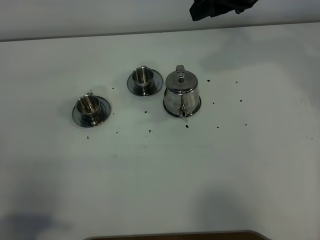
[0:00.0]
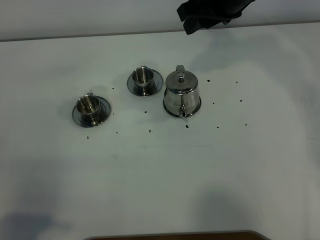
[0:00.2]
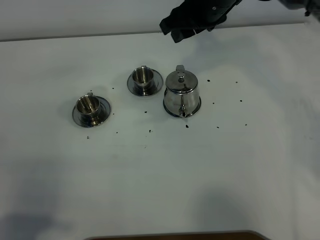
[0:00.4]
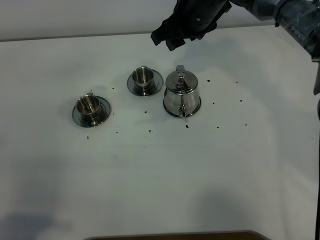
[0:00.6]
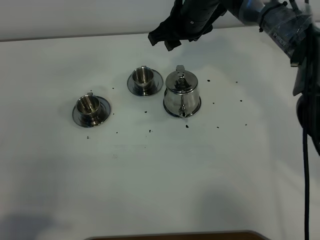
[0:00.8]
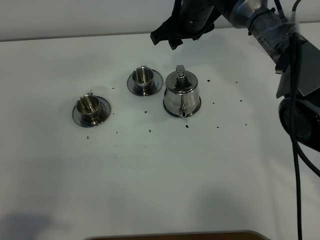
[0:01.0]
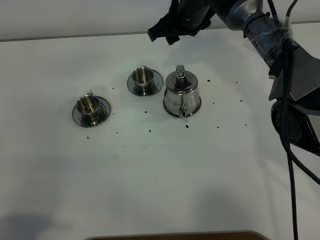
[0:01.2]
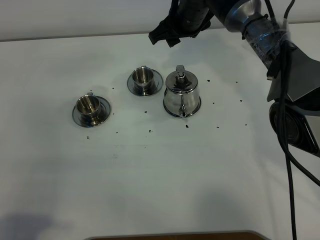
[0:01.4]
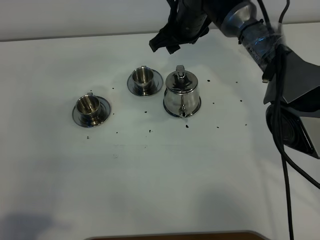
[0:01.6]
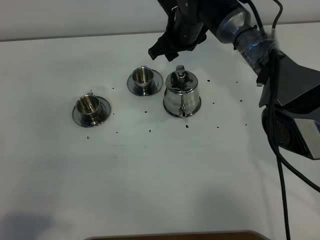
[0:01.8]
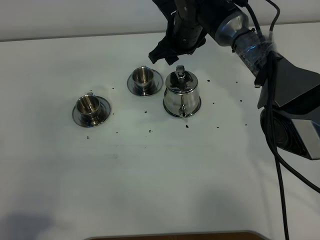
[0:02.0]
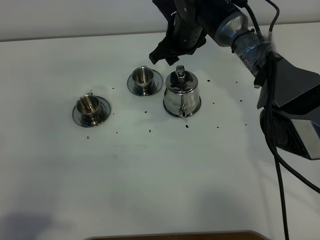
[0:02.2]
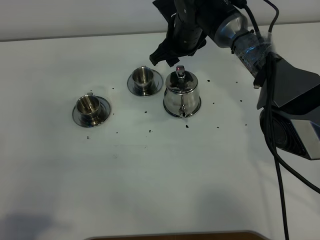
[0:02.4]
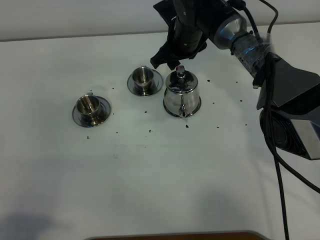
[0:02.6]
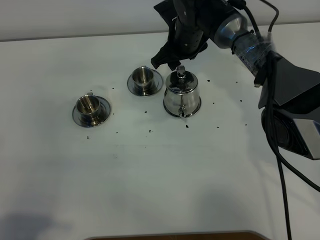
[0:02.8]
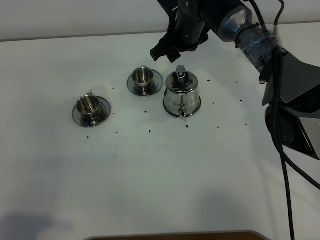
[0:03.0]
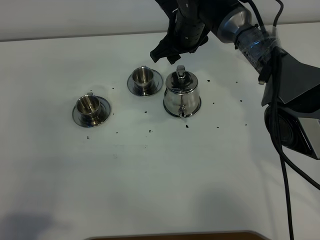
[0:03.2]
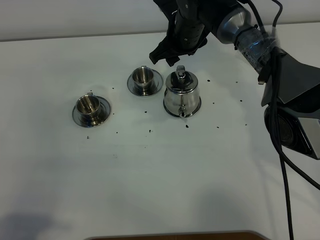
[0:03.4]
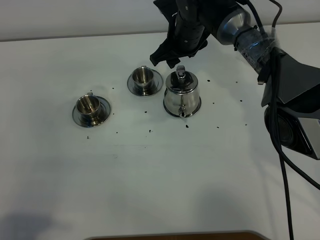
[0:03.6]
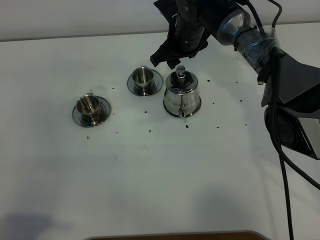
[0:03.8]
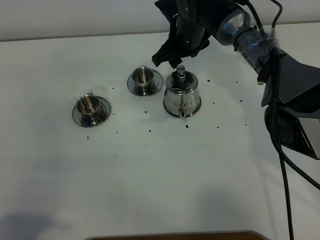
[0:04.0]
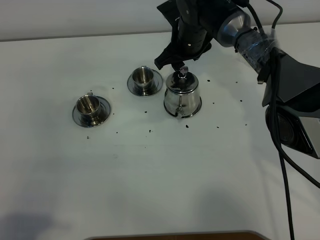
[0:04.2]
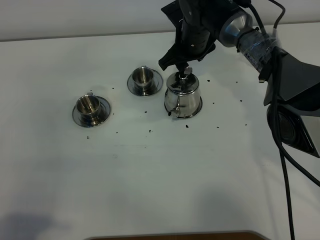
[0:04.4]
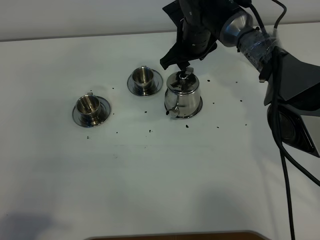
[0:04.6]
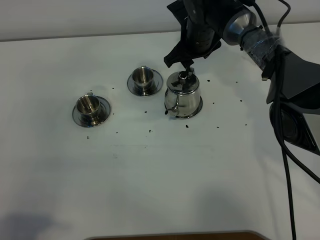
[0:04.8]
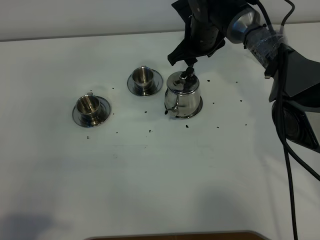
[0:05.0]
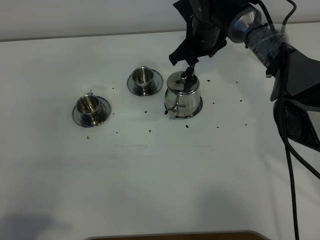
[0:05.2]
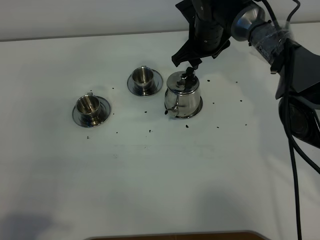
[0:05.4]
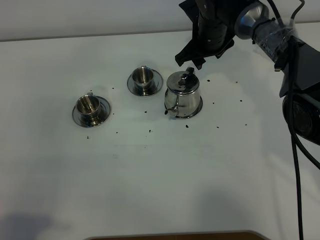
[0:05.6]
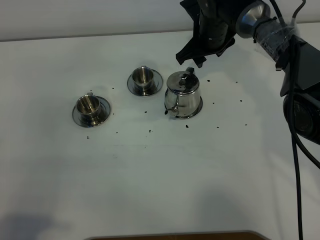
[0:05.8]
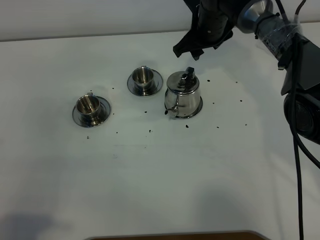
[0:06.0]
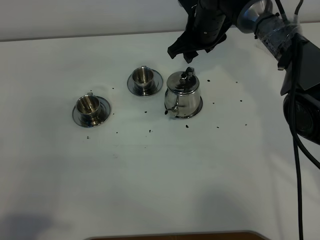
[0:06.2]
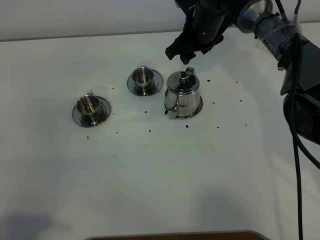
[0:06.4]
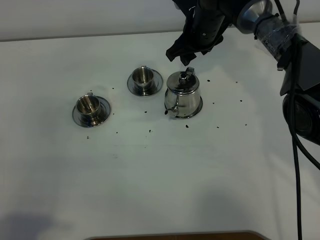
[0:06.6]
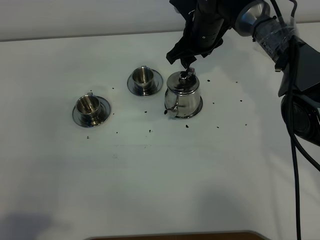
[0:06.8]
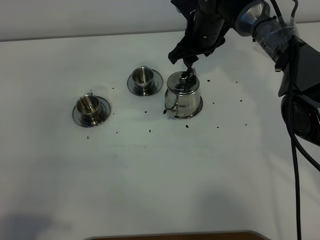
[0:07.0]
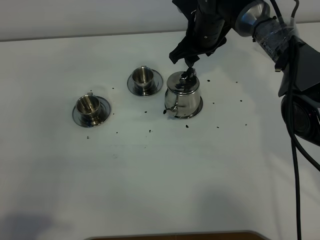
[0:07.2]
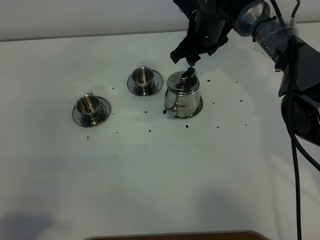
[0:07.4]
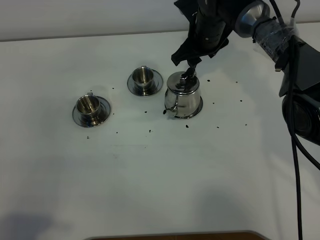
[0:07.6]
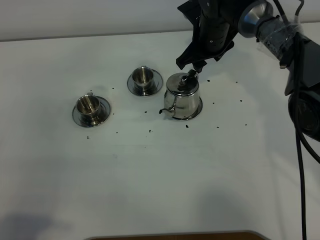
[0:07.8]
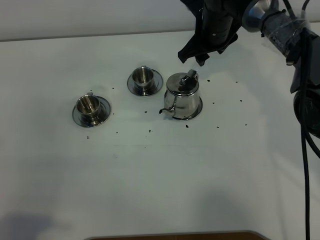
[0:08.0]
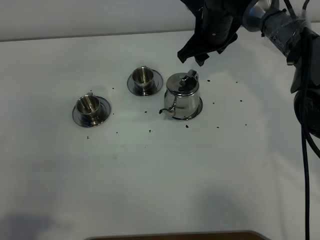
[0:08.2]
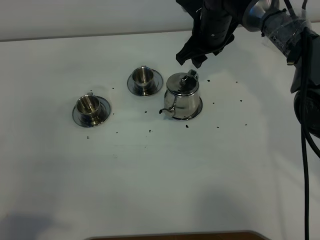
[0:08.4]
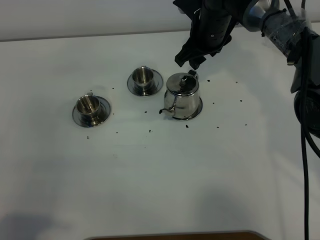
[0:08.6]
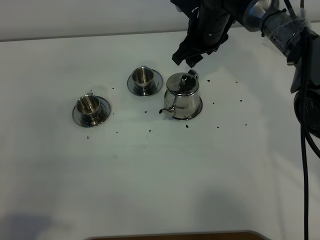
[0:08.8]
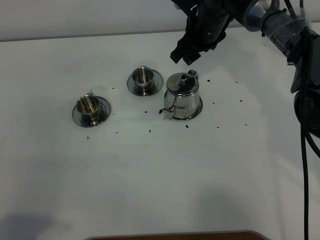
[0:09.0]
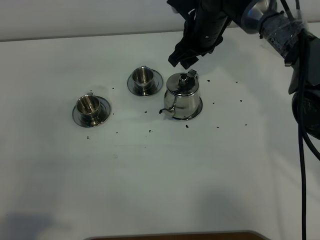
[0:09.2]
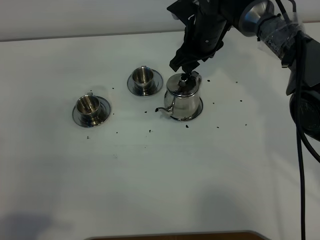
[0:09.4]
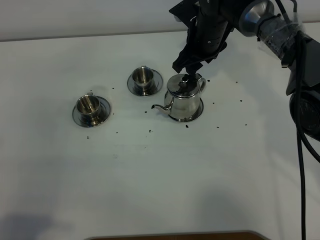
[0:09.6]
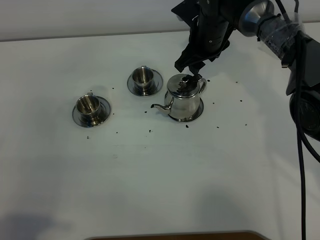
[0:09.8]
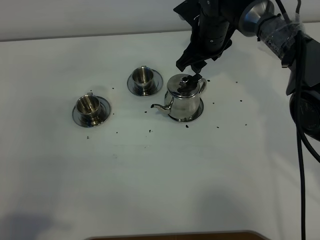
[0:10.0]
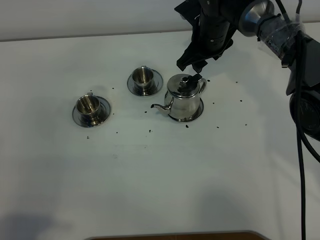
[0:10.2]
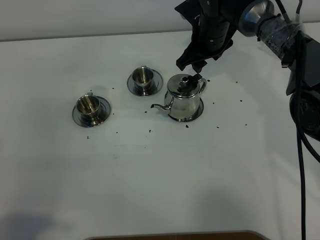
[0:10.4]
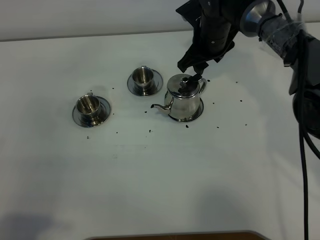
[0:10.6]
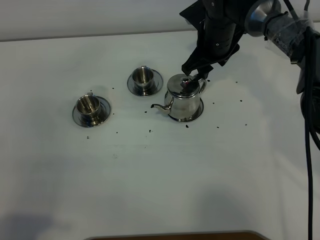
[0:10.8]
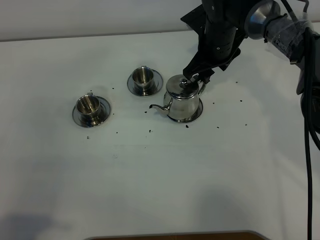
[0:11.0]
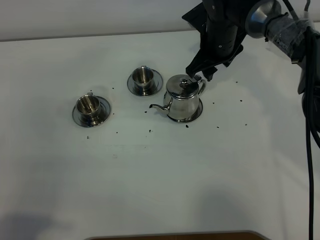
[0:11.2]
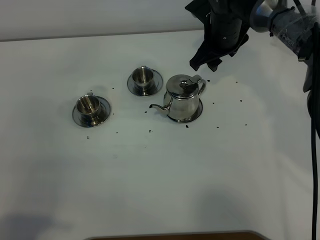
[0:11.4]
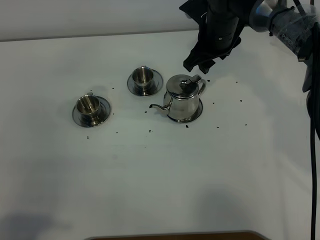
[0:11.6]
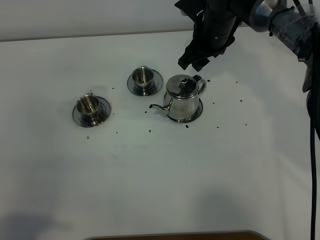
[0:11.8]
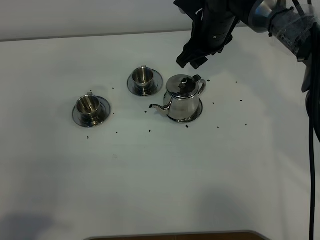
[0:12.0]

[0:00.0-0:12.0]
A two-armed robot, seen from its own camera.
Task of the whole recording: grasp the stainless steel teapot and pour the tea into the two stainless steel teacups one by one, put the stainless steel teapot back in its original place.
0:00.0 to 0:01.6: The right gripper moves downward, to the left and forward, approximately 20 cm.
0:01.6 to 0:10.4: The grippers stay close to where they were, moving slightly.
0:10.4 to 0:12.0: The grippers make only small movements.

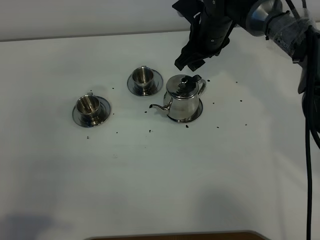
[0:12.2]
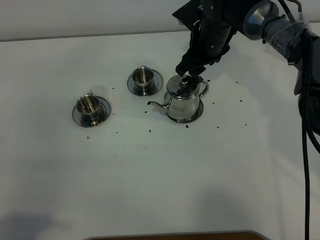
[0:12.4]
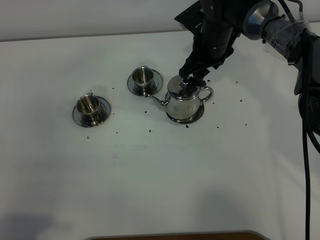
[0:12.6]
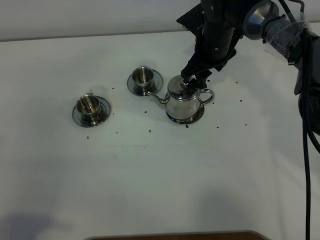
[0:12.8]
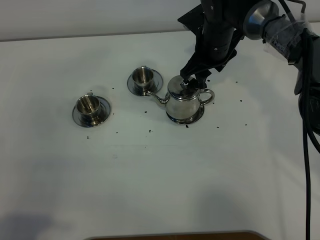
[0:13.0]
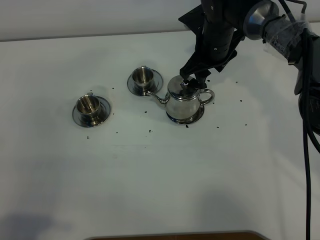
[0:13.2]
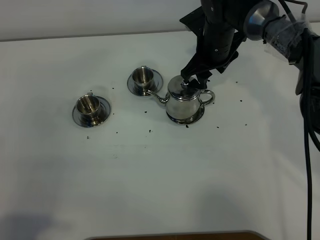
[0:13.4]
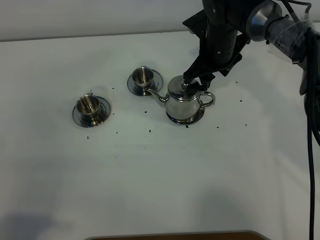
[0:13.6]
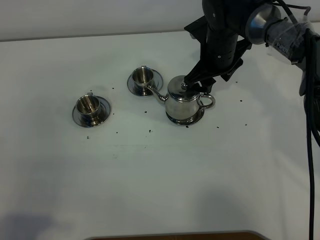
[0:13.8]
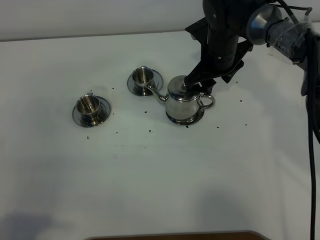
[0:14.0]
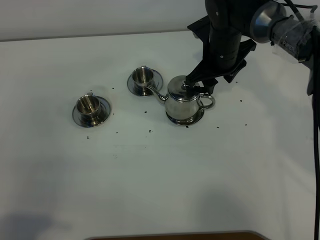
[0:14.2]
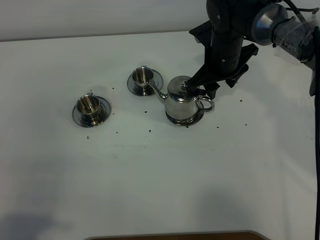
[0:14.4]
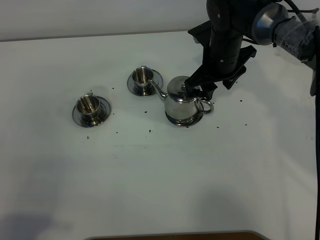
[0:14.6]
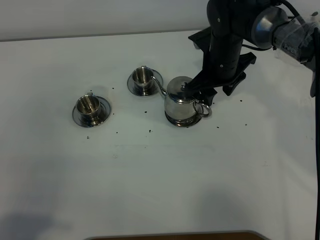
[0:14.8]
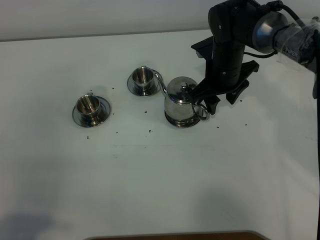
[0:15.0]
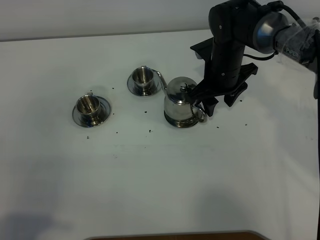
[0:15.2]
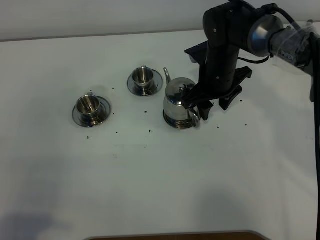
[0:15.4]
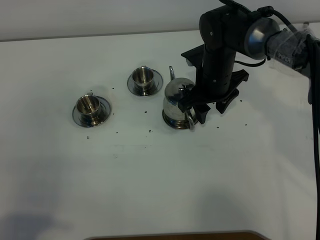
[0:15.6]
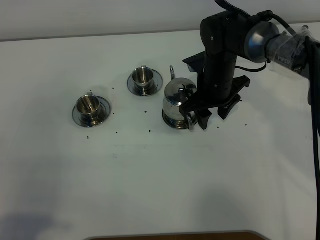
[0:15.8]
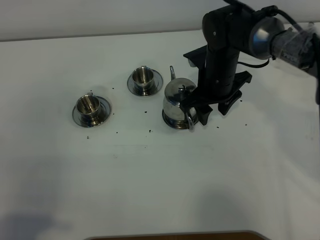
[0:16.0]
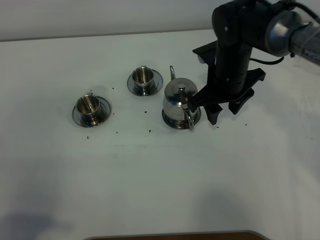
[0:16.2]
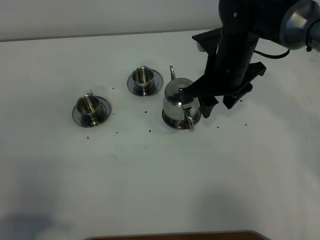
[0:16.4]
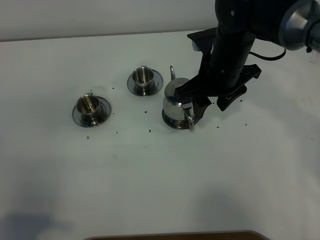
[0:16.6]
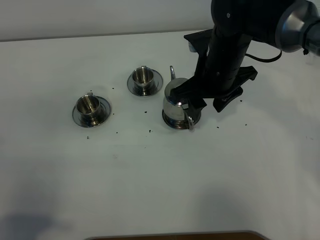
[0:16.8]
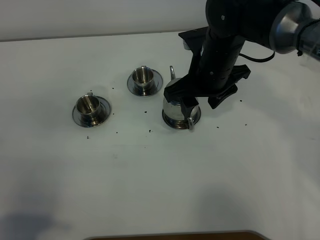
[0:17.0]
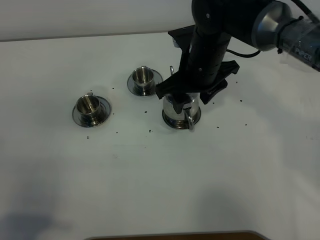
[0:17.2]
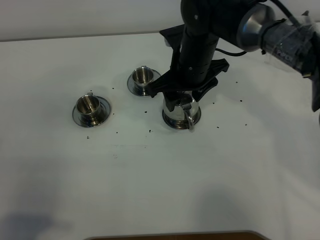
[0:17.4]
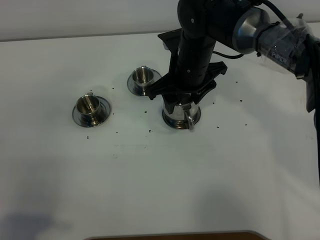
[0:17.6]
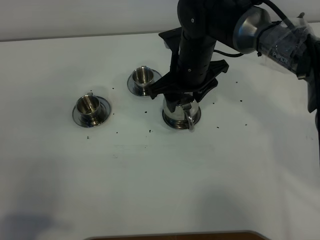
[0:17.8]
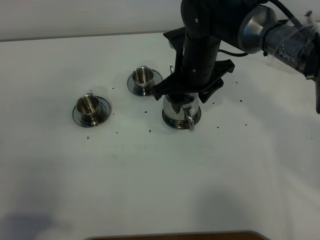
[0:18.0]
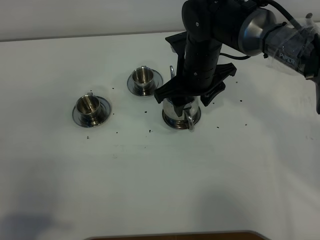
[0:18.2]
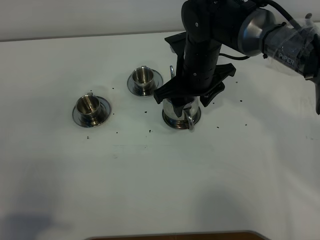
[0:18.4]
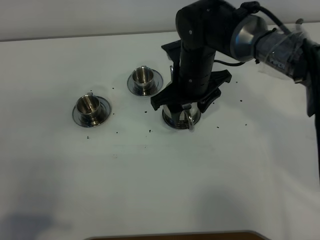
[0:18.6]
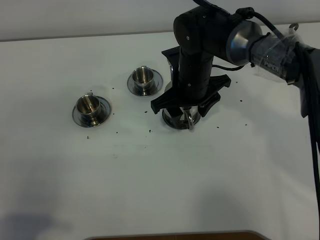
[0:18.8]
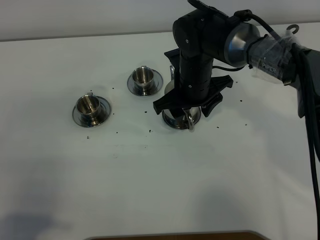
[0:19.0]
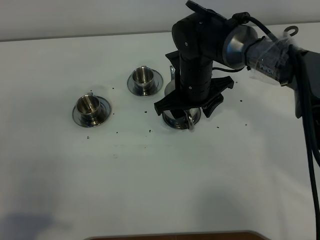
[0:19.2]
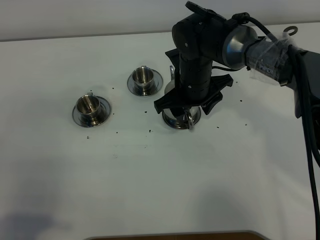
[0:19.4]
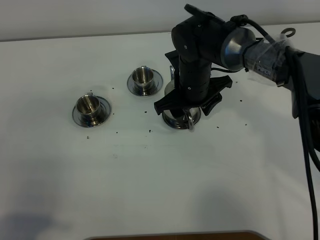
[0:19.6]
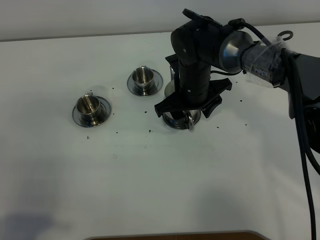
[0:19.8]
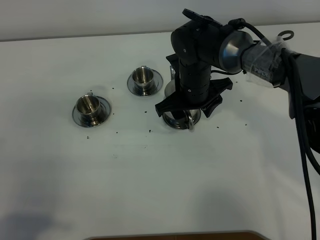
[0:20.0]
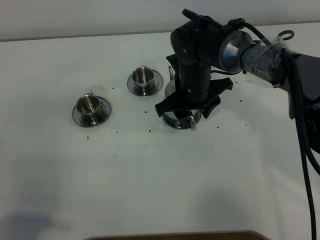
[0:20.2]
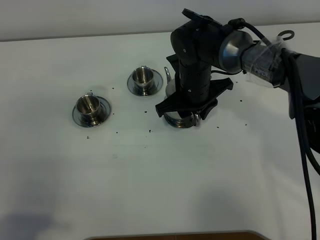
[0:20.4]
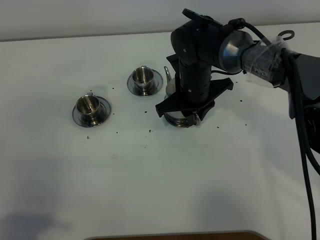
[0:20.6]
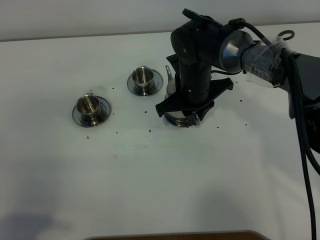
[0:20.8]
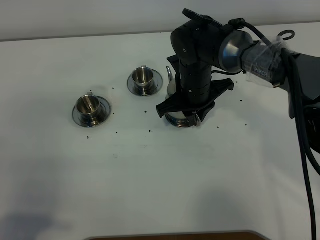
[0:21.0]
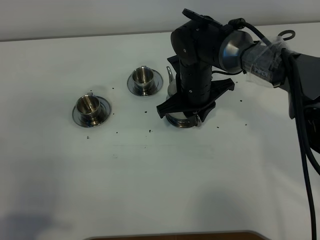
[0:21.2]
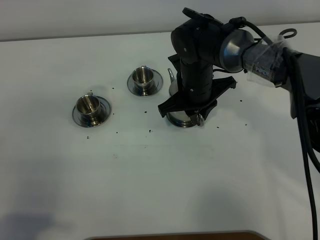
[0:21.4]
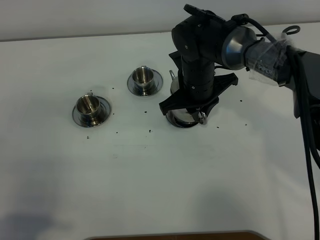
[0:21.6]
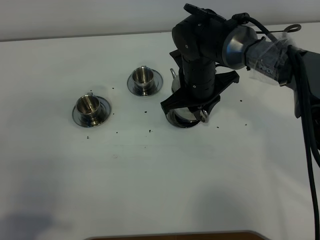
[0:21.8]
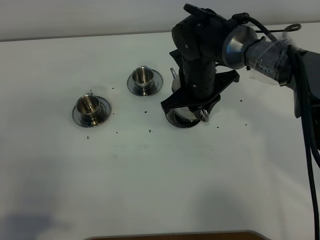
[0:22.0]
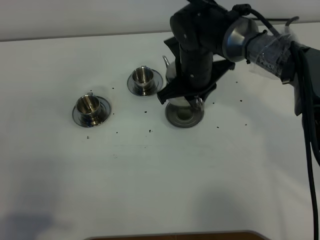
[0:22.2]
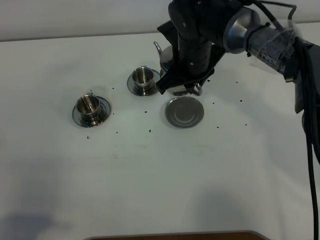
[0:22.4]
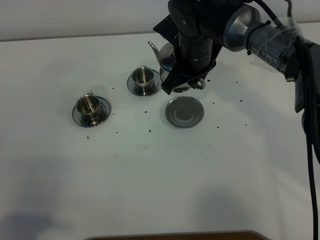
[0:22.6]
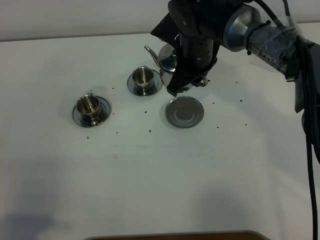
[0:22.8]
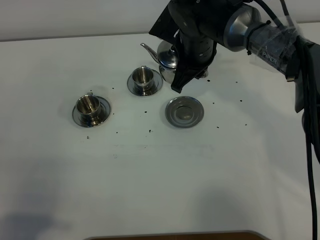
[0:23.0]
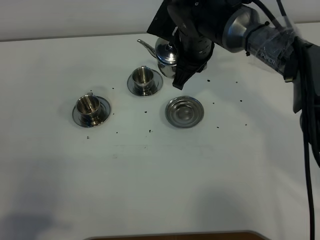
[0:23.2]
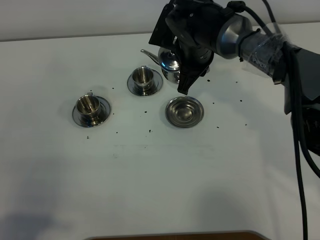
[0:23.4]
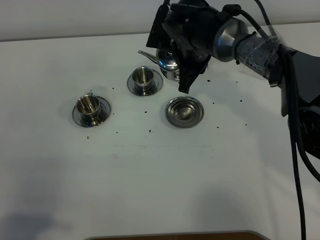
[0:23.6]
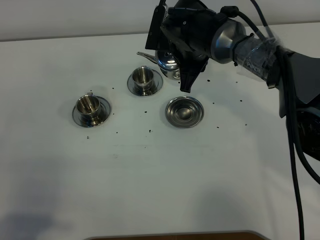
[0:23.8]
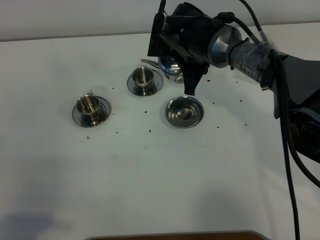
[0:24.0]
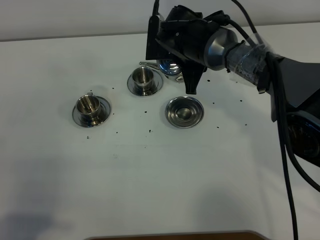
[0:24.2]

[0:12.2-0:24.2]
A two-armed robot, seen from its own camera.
Task of the whole recording: grasp the stainless steel teapot and pour the tea into the two stainless steel teacups one by one, put the stainless steel teapot back in its original place.
Step, 0:12.2 to 0:21.8: Pick up the teapot with the right gripper.
0:12.2 to 0:13.8: The grippers stay close to where they were, moving slightly.
0:13.8 to 0:15.2: The grippers stay close to where they were, moving slightly.
0:15.2 to 0:16.6: The right gripper is displaced upward and backward by approximately 10 cm.
0:16.6 to 0:18.2: The right gripper changes place by some 5 cm.
0:18.2 to 0:19.8: The right gripper is displaced downward by some 5 cm.
0:19.8 to 0:21.2: The right gripper closes up.
0:21.2 to 0:22.6: The right gripper is displaced upward by some 5 cm.
